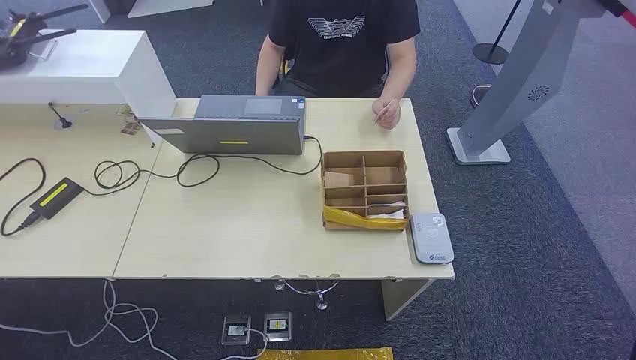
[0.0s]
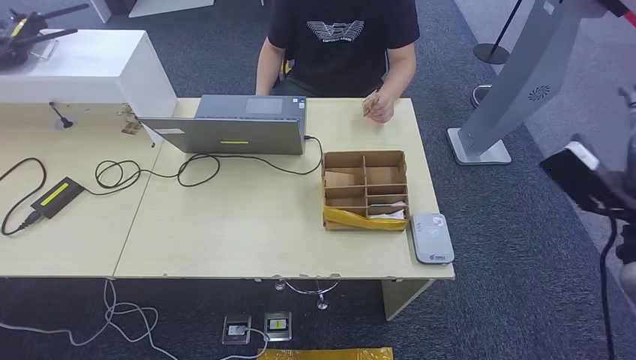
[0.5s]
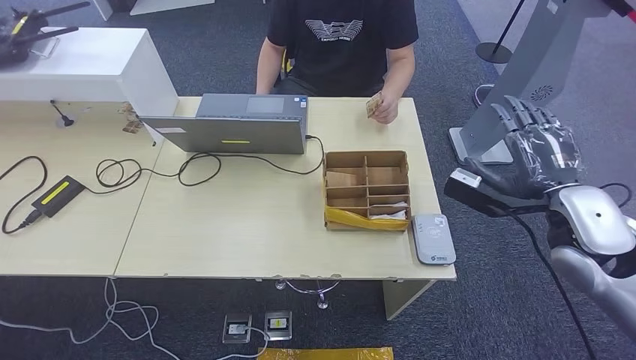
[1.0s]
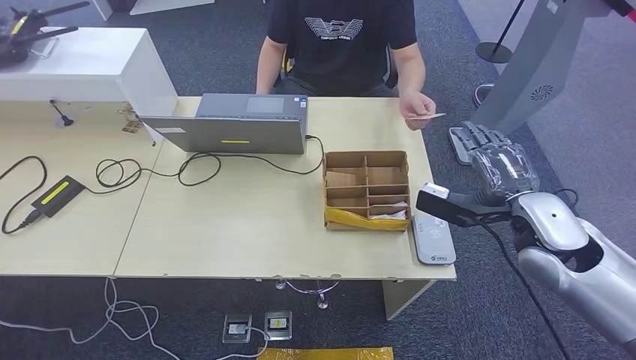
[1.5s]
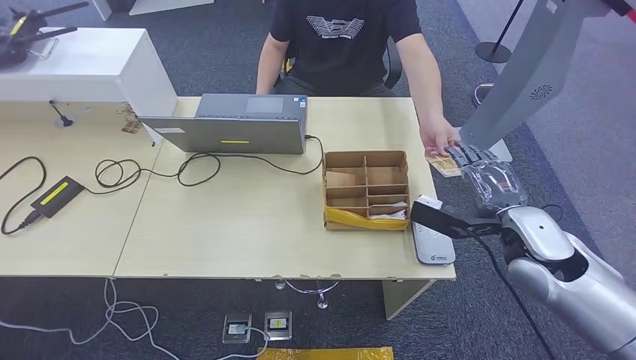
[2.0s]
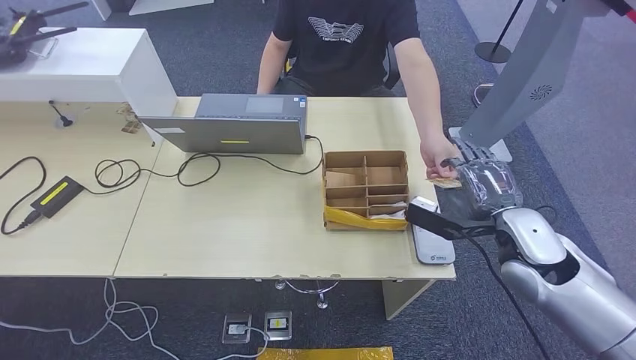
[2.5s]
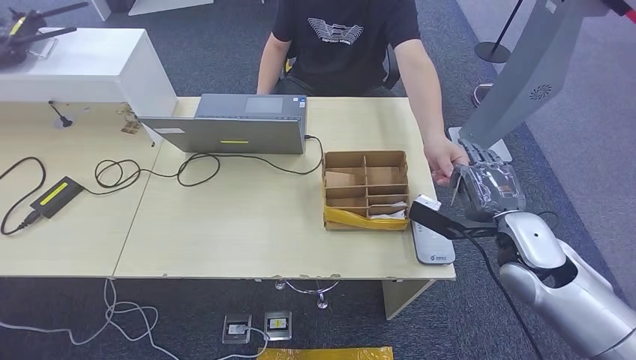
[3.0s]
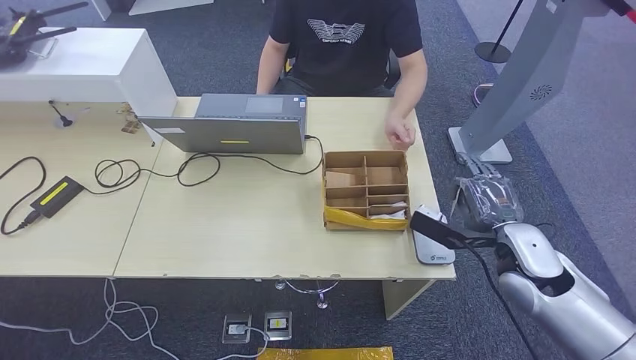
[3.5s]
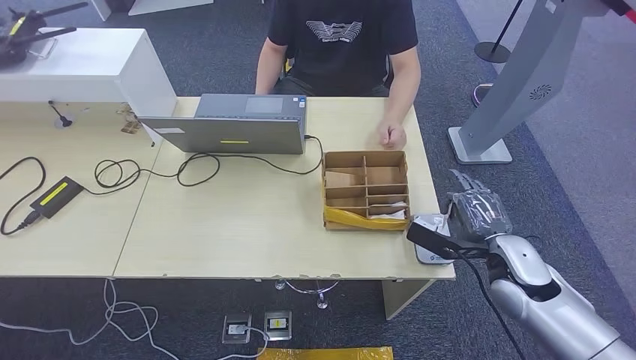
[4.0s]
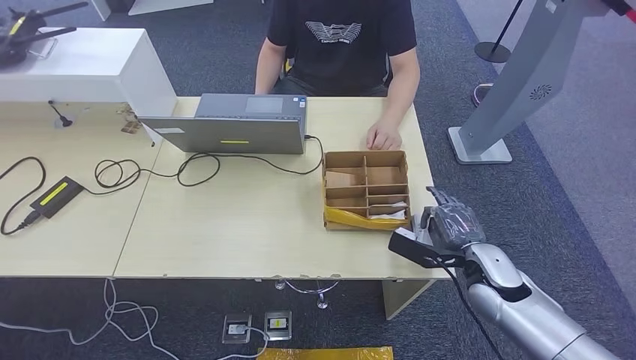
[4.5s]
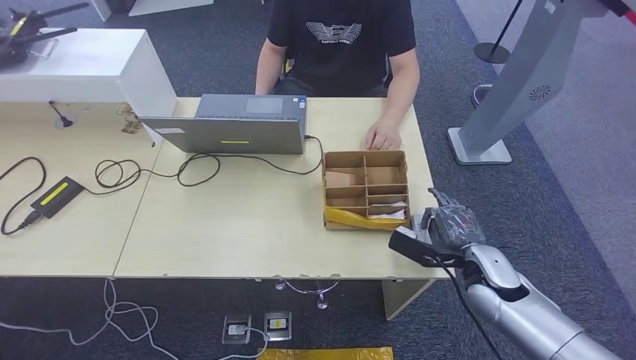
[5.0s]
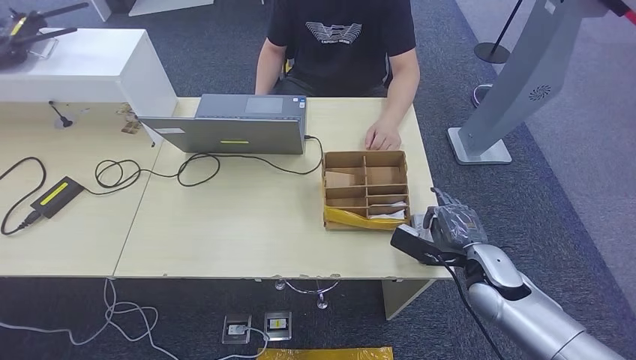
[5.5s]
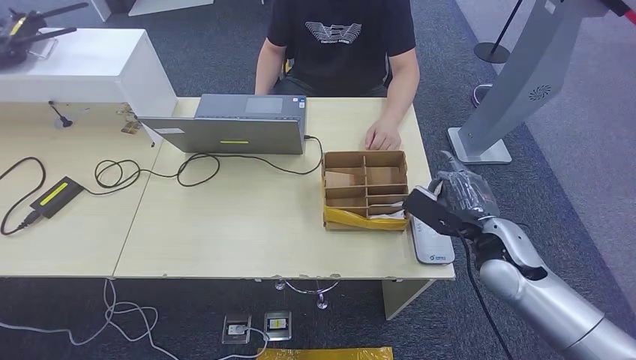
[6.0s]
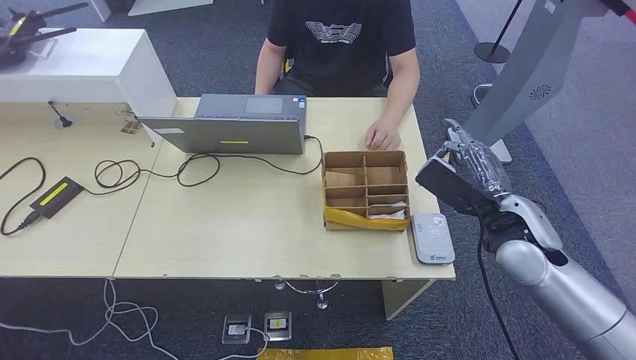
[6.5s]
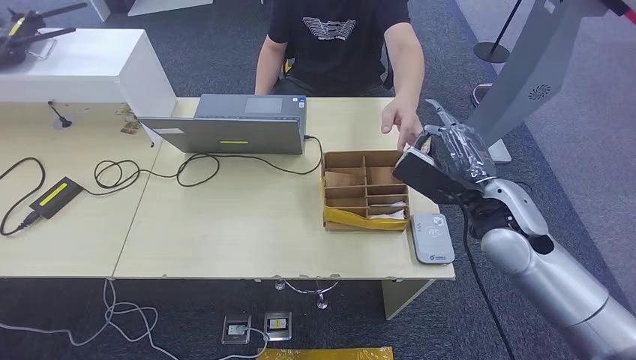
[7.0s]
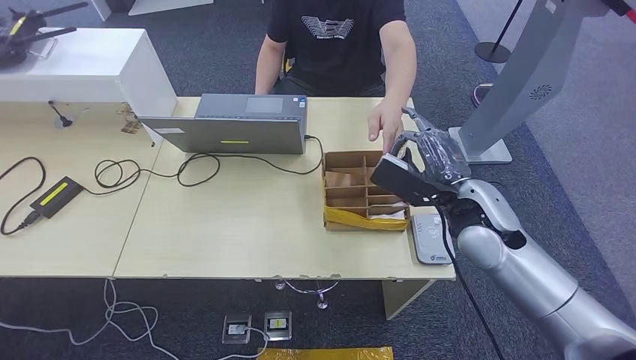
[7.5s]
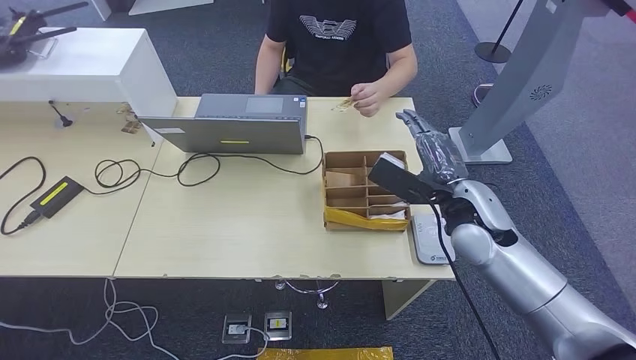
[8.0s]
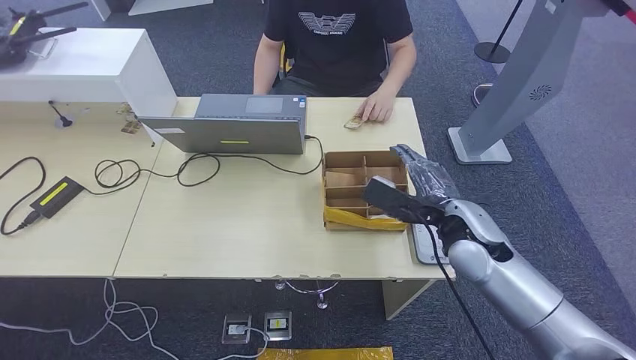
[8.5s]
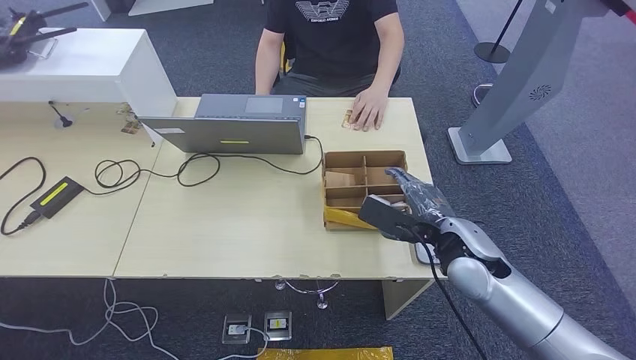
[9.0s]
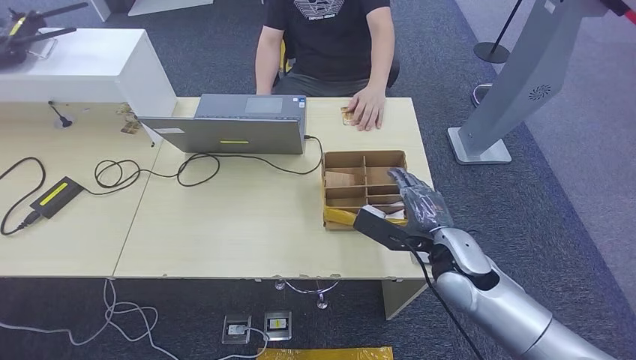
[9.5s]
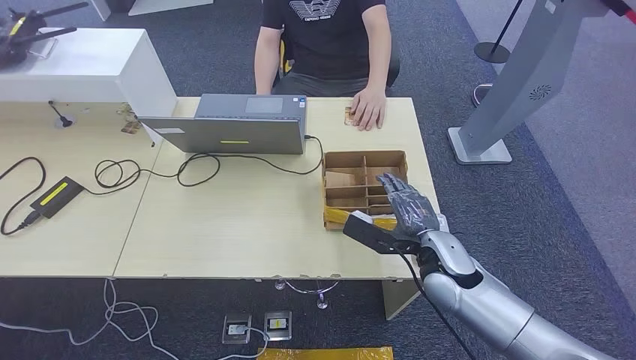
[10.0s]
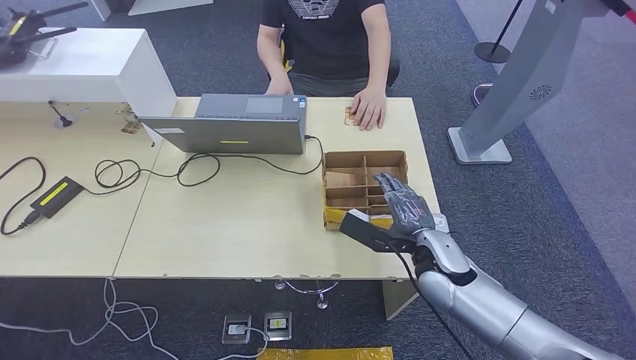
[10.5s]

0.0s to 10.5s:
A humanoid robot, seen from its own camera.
Step, 0.0s to 4.5s: Take the ID card from the person's hand.
Step, 5.0s to 5.5s: Place the ID card on the card reader.
Step, 6.0s to 8.5s: Hand the ID card to the person.
2.0s to 4.0s: The right hand moves downward, approximately 5 cm.
4.0s to 6.5s: The right hand travels upward by roughly 10 cm.
6.5s to 8.5s: The right hand travels to the left by some 5 cm.
8.5s to 10.5s: The right hand heads downward, covering some 5 cm.

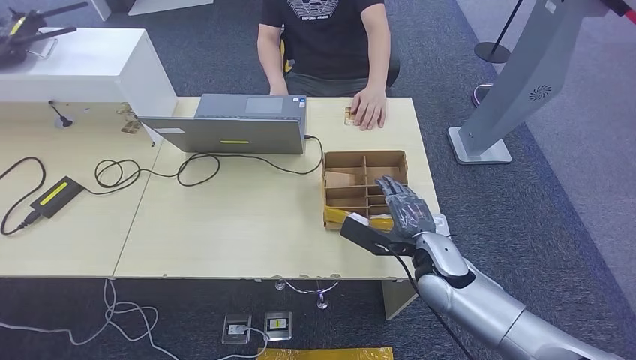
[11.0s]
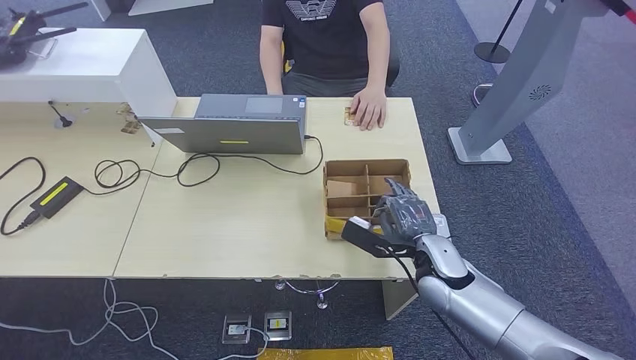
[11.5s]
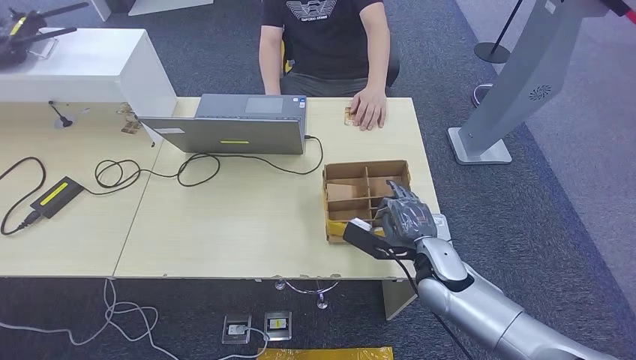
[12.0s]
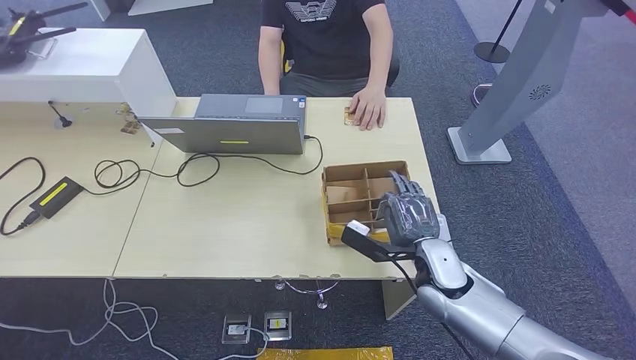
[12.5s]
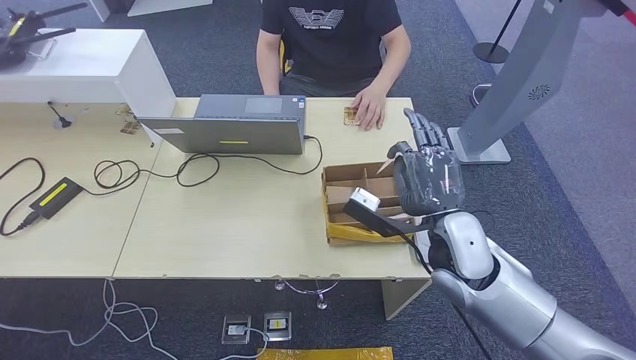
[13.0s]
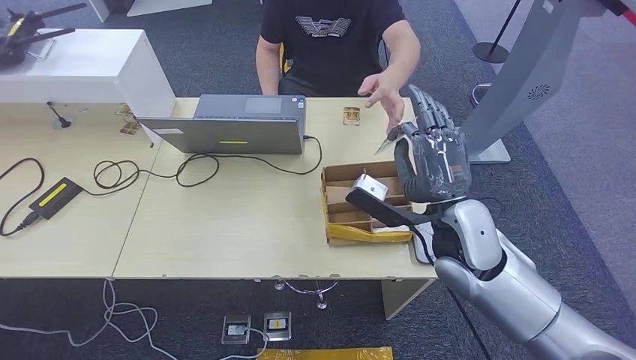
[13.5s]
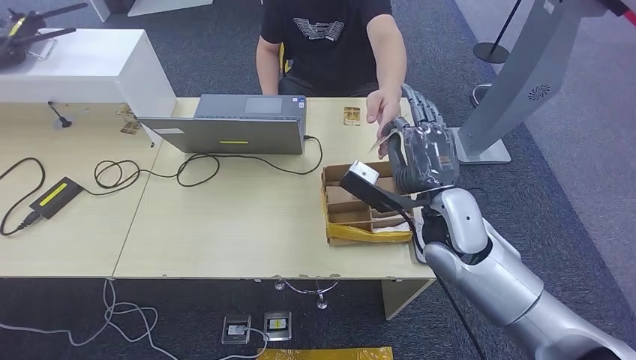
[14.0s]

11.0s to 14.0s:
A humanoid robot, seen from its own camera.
Step, 13.0s to 14.0s: Hand the room key to the person.
11.0s to 12.5s: The hands make only small movements.
12.5s to 14.0s: The right hand travels upward by approximately 10 cm.
